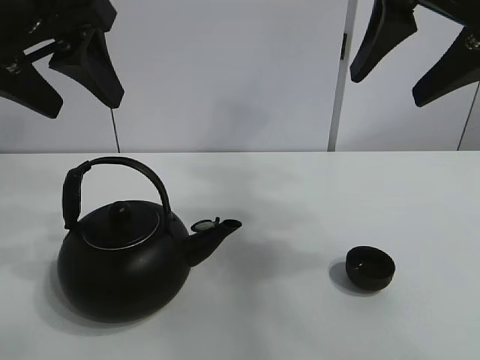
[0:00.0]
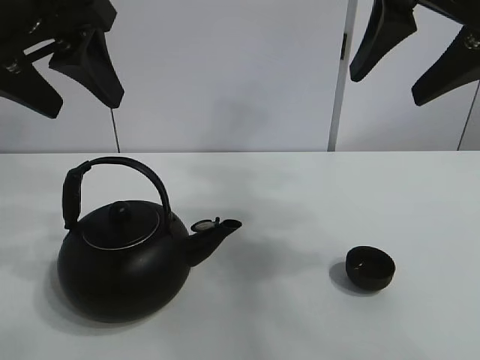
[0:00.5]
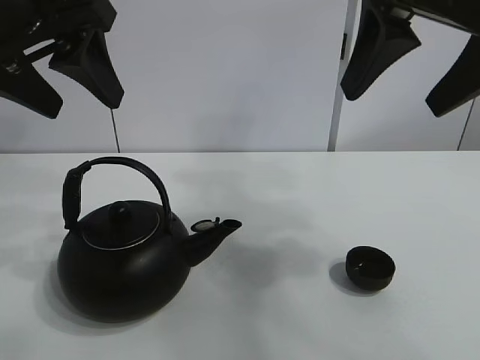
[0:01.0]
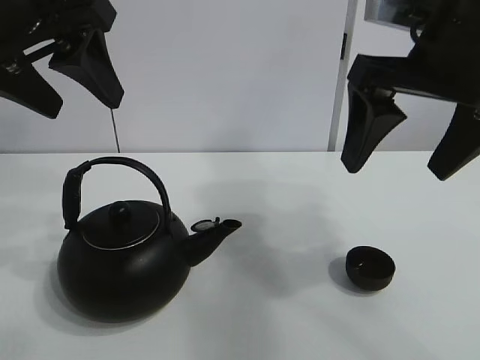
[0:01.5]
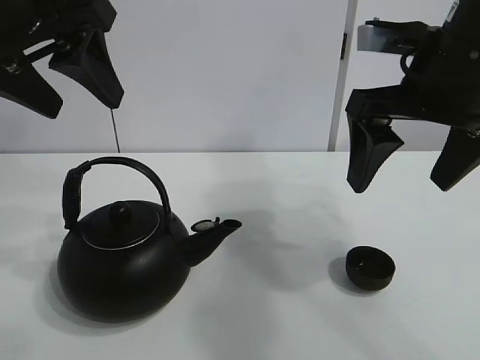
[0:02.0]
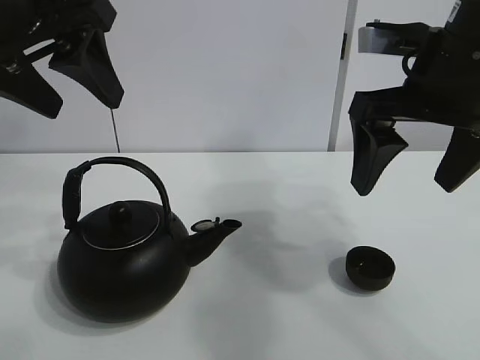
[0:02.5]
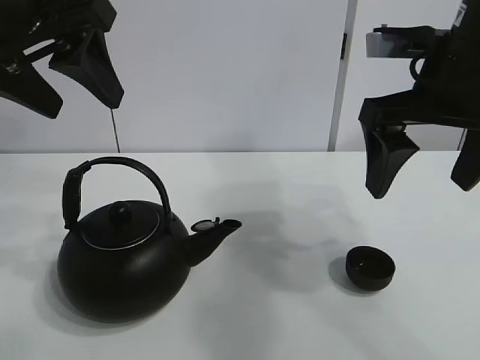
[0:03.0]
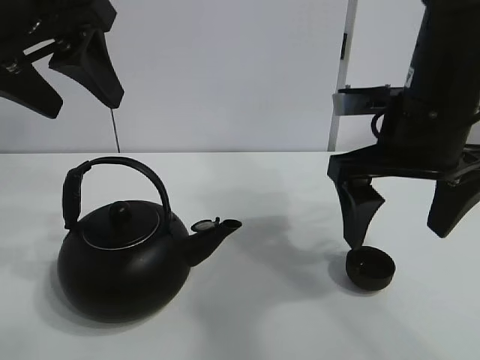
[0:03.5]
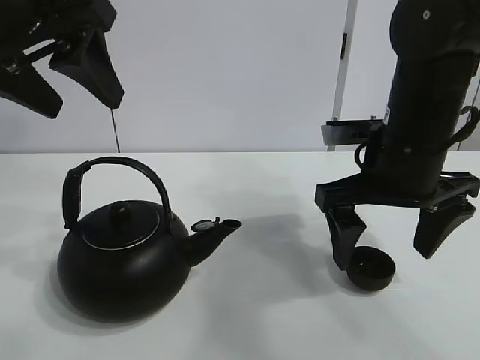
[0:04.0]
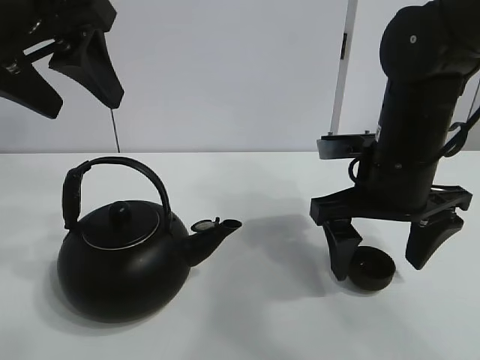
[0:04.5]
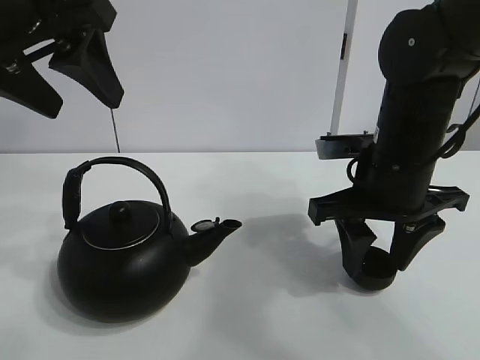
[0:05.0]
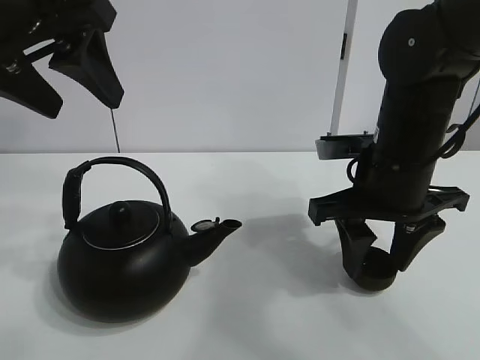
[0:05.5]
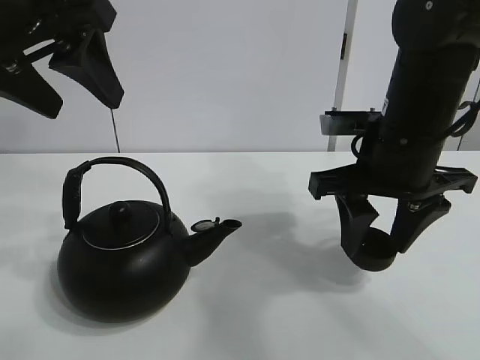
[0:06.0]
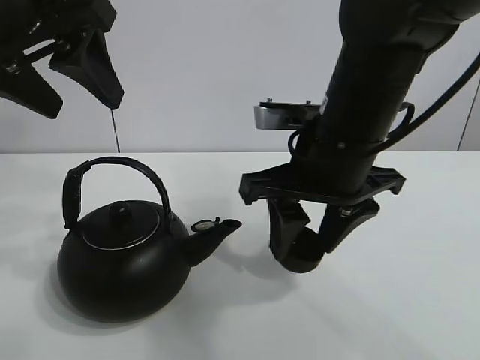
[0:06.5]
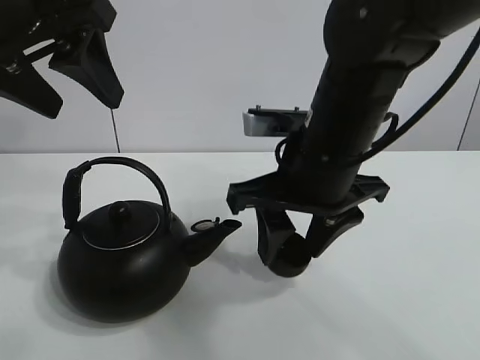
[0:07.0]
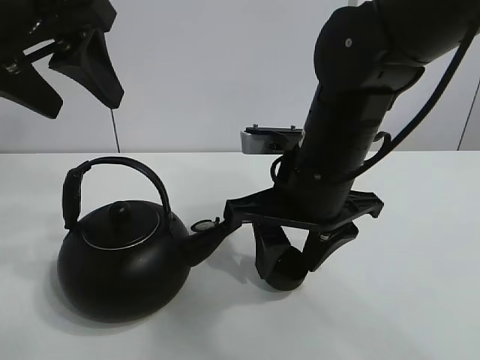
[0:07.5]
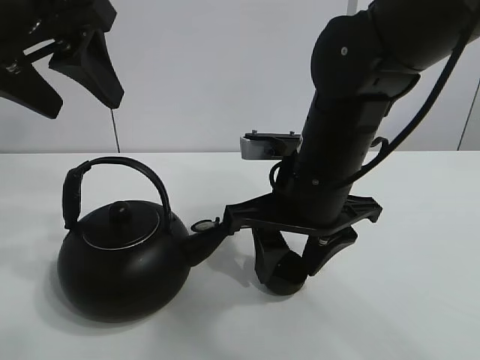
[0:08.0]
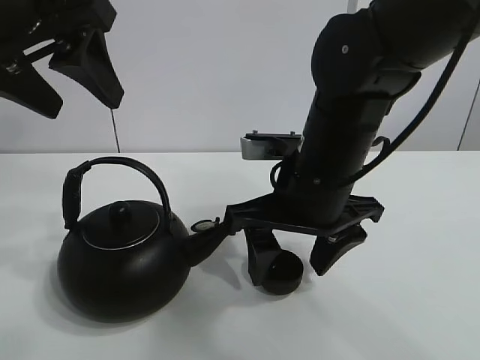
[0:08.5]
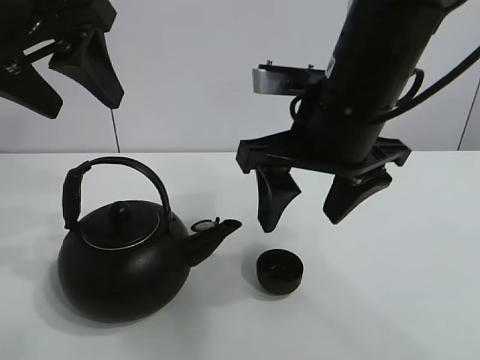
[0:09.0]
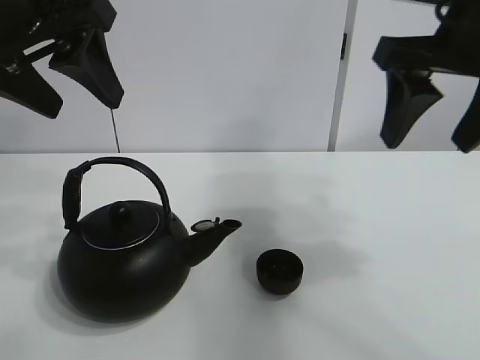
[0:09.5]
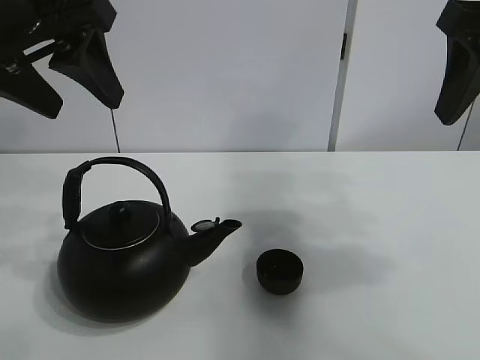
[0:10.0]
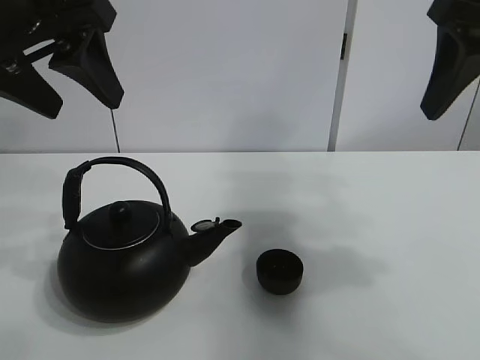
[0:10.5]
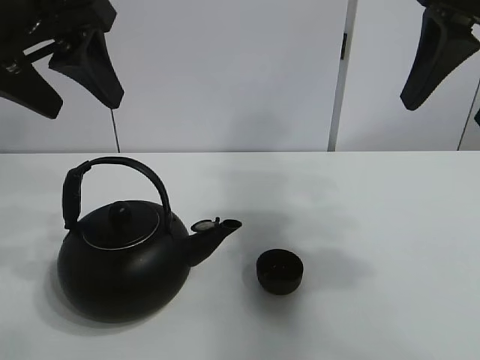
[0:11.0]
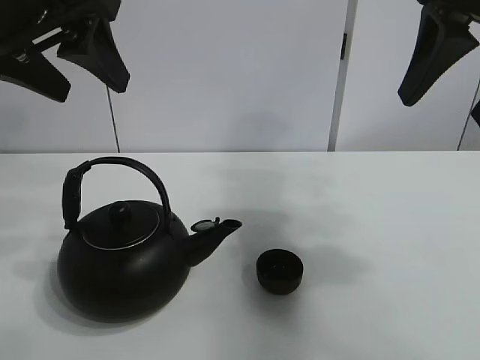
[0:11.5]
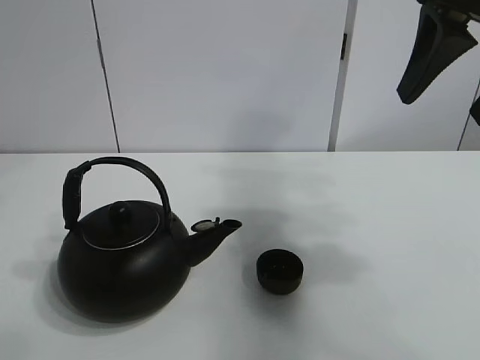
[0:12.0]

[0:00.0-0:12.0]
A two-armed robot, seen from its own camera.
Task of the whole recording: pour tea into the teacup.
Step, 0:00.0 to 0:05.0: Pick up the teacup with the right gripper.
Step, 0:05.5 to 0:08.0: Place the teacup in the center of view with the right gripper.
0:02.0 to 0:04.0: The right gripper is displaced downward by about 10 cm.
0:04.0 to 0:06.0: The right gripper closes up.
0:06.0 to 0:08.0: The right gripper heads to the left, covering approximately 10 cm.
0:08.0 to 0:10.0: The right gripper is displaced upward and to the right by some 25 cm, and opens.
0:10.0 to 0:12.0: The left gripper goes some 5 cm backward.

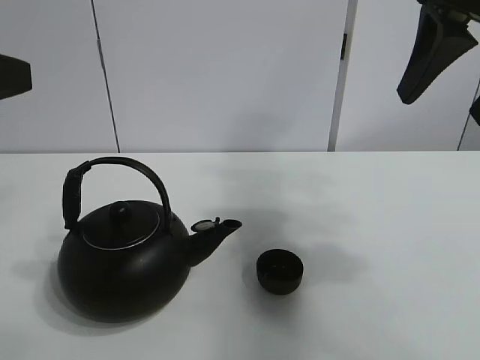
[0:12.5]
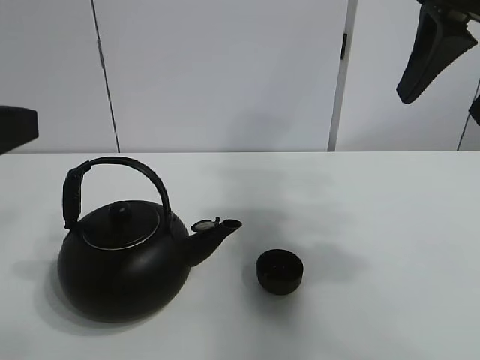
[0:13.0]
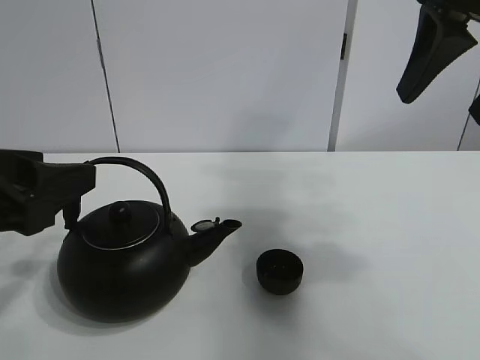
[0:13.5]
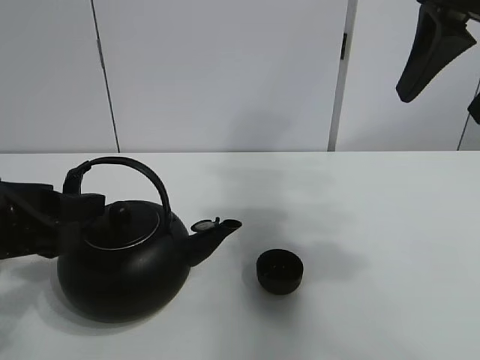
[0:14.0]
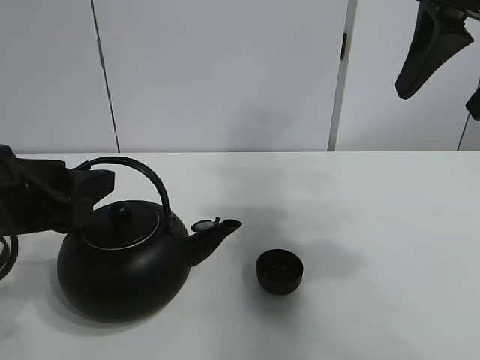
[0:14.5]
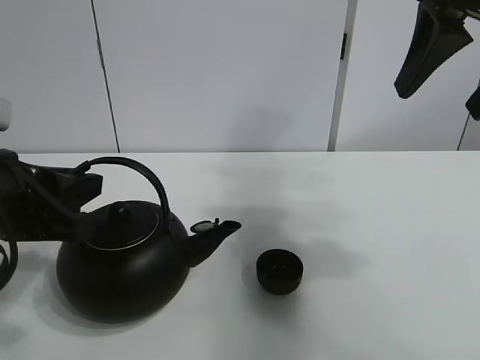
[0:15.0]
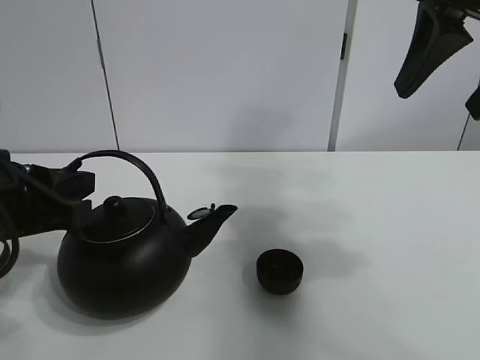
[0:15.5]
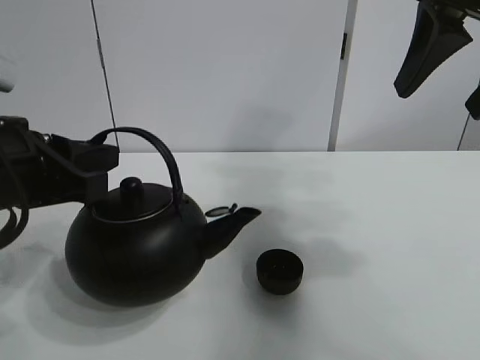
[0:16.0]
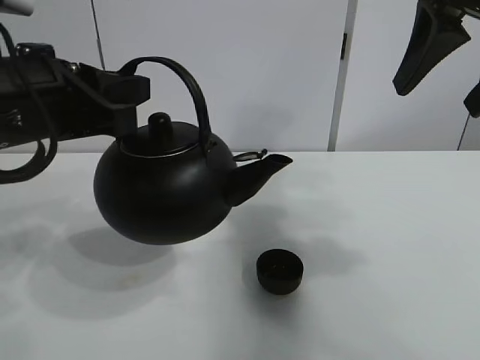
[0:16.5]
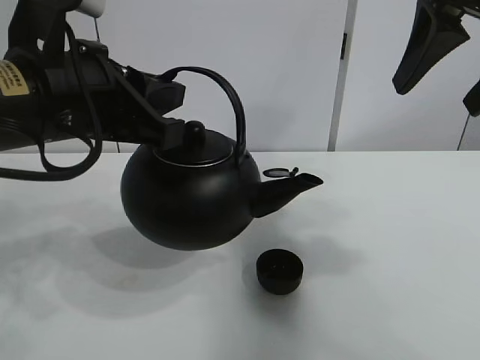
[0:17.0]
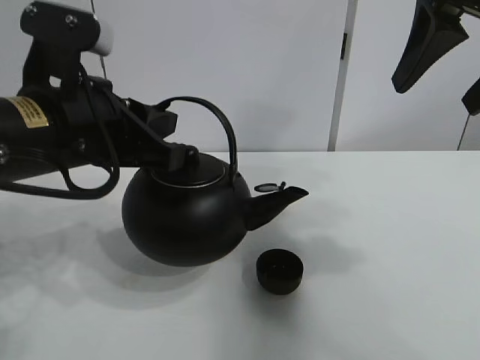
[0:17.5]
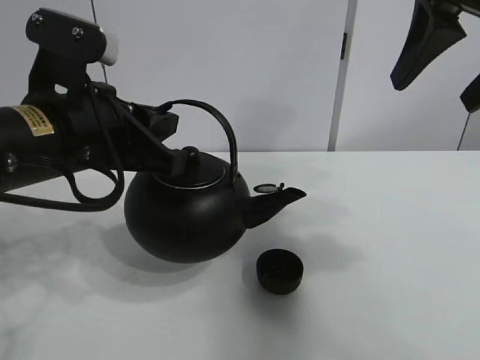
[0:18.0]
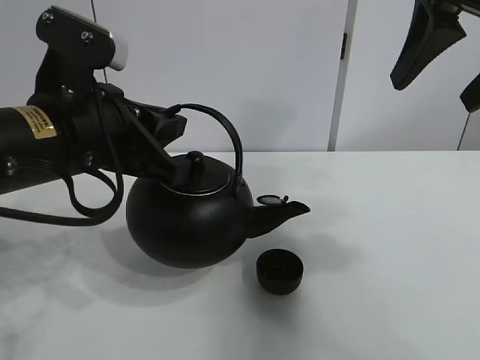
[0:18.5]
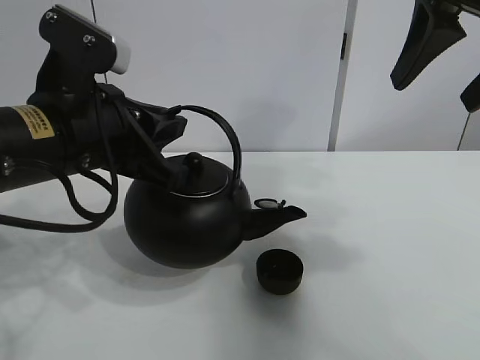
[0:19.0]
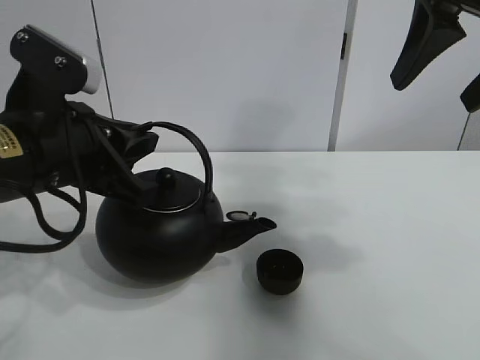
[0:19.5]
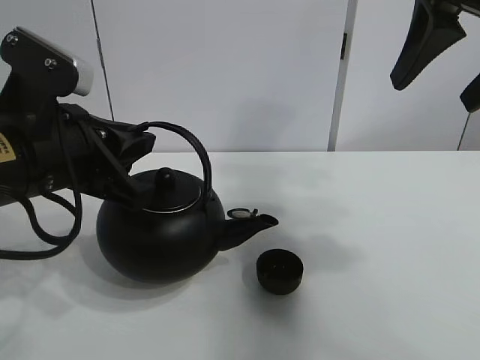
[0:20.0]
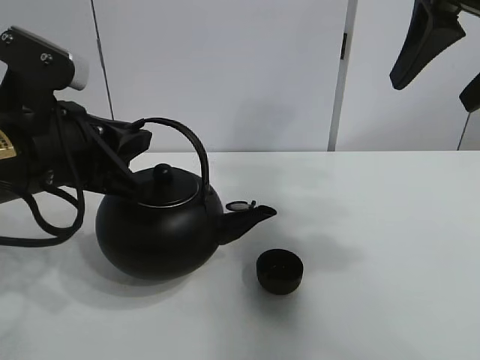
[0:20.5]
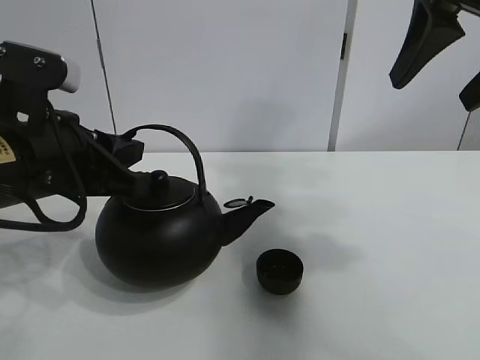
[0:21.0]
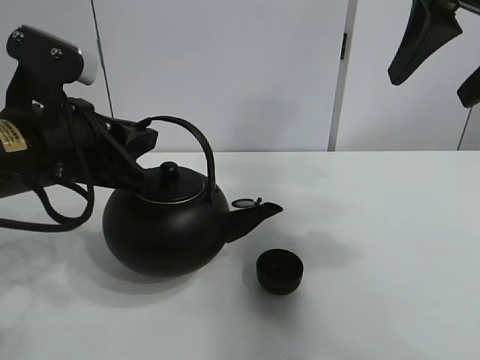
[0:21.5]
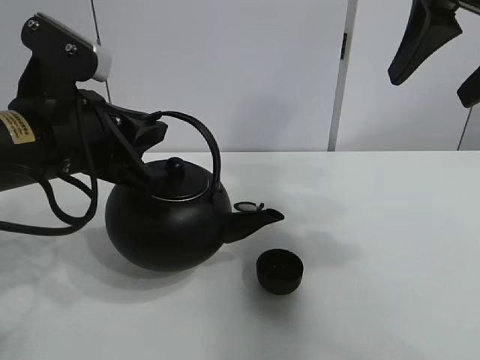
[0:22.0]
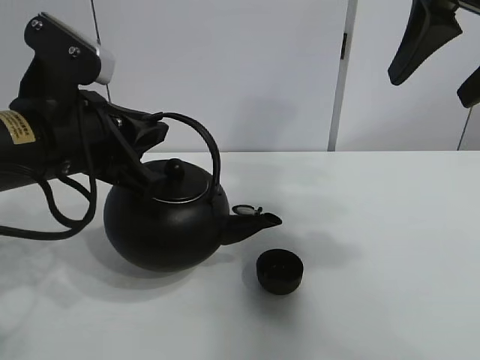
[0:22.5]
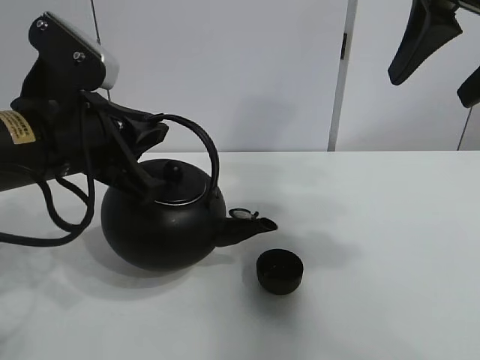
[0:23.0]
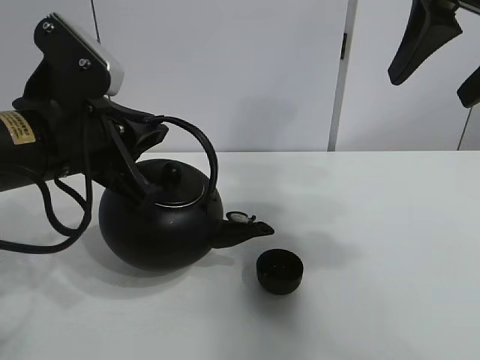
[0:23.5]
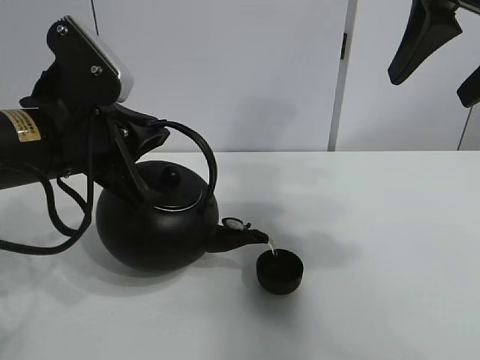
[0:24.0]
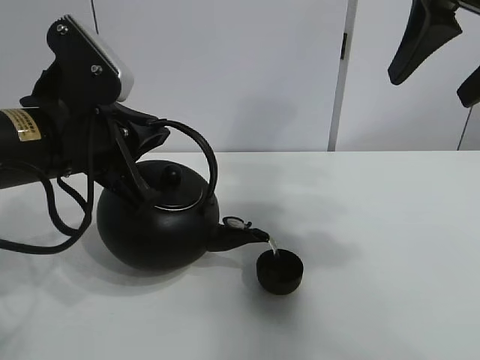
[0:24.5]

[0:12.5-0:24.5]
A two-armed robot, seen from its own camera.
Task of the whole recording: pour tea into the teacup.
Step, 0:12.5 to 0:15.0: Pick up the teapot with the left gripper.
0:12.5 to 0:14.5: The left gripper shifts approximately 10 cm downward.
0:14.5 to 0:16.5: The left gripper travels upward by some 5 cm, and closes its fingers.
0:16.5 to 0:22.5: The grippers move only a little.
0:22.5 to 0:24.5: The grippers make only small movements.

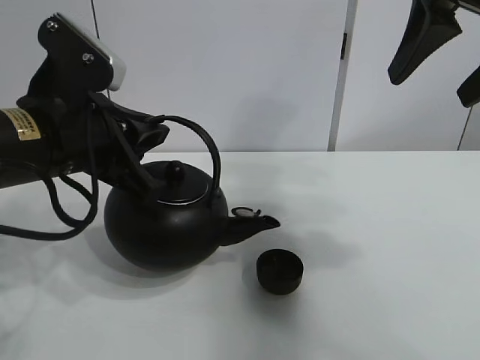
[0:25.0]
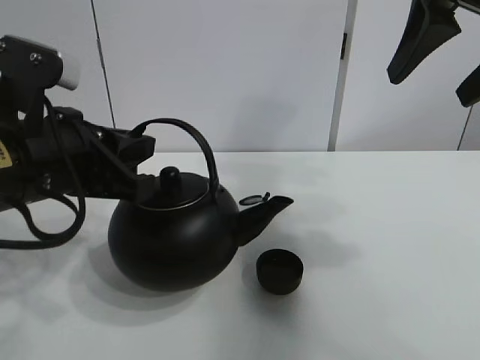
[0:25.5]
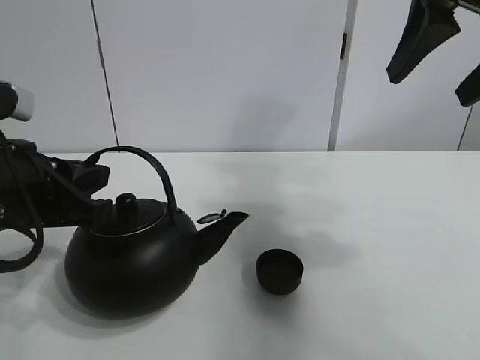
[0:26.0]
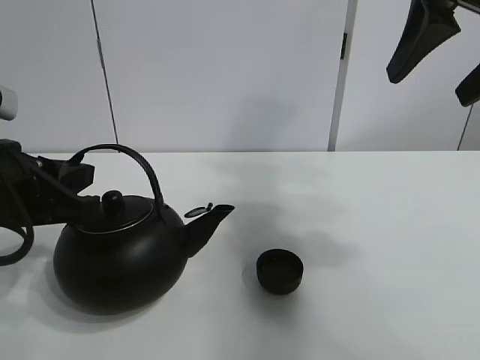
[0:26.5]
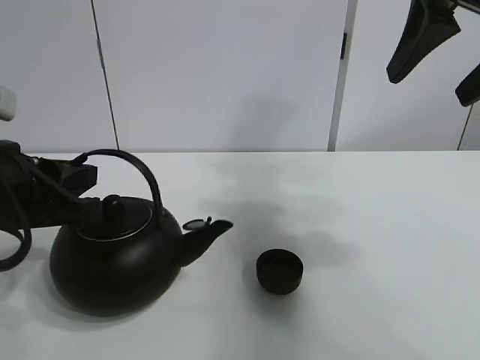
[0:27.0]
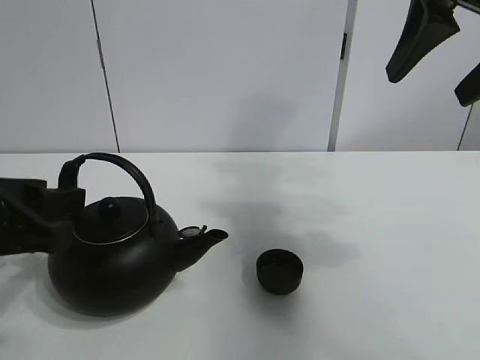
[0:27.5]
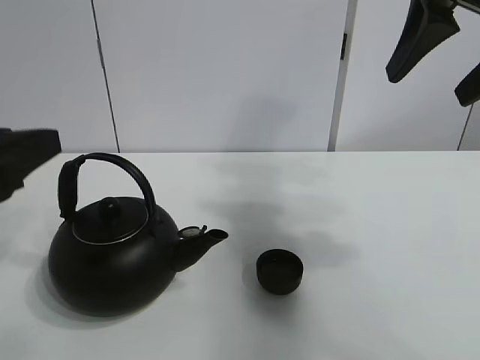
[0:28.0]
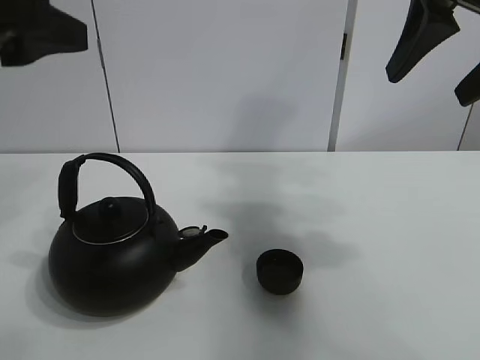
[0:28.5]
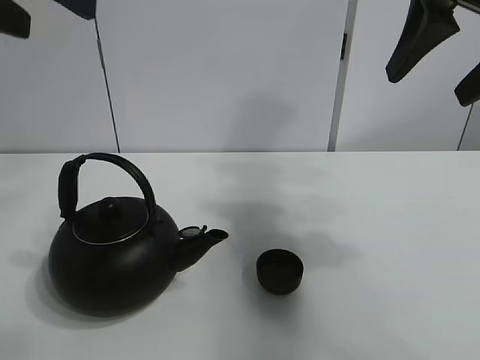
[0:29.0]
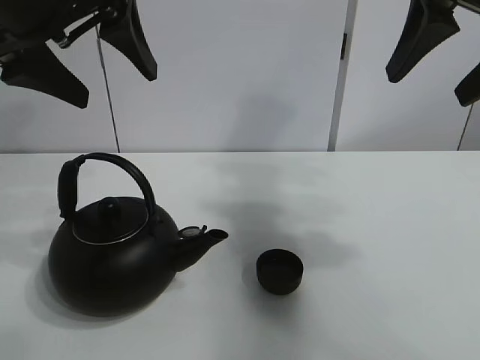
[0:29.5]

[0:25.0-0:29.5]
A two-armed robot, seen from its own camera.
Task of the whole recording: pour tea into the teacup.
0:25.0 to 0:27.0: The left gripper heads to the left, covering some 5 cm.
0:27.0 to 0:29.5: The left gripper travels upward by approximately 15 cm, and opens up.
